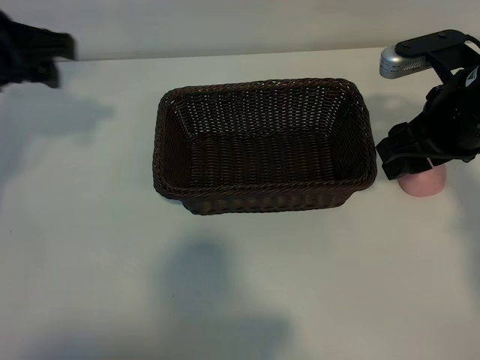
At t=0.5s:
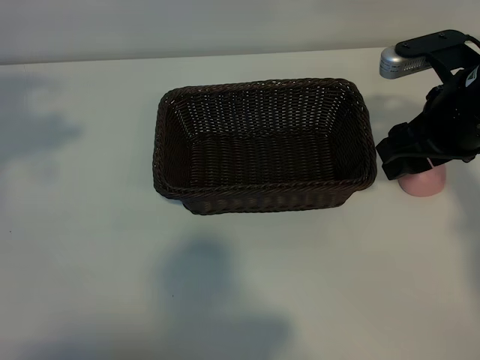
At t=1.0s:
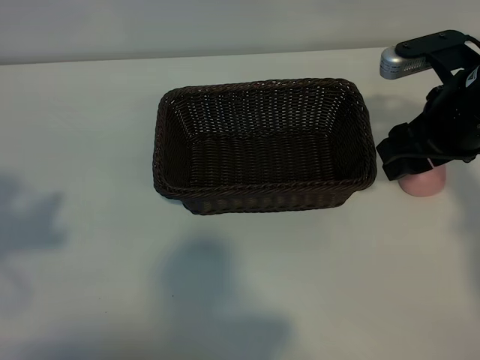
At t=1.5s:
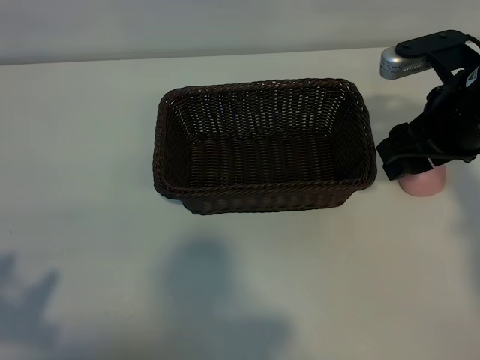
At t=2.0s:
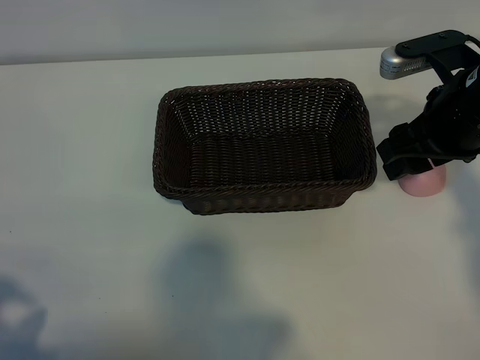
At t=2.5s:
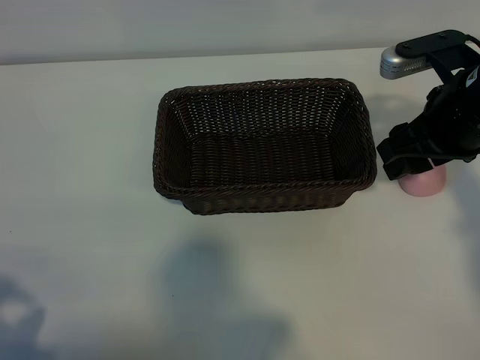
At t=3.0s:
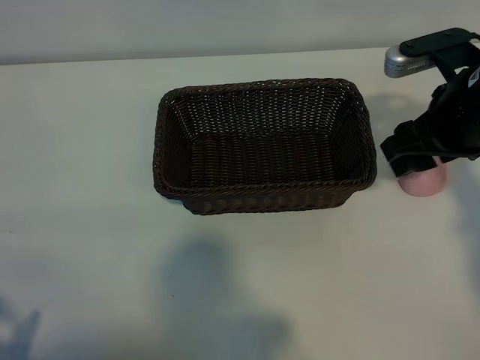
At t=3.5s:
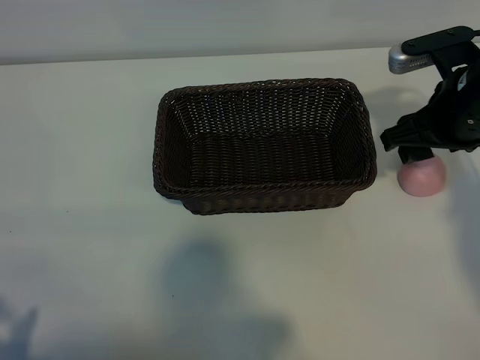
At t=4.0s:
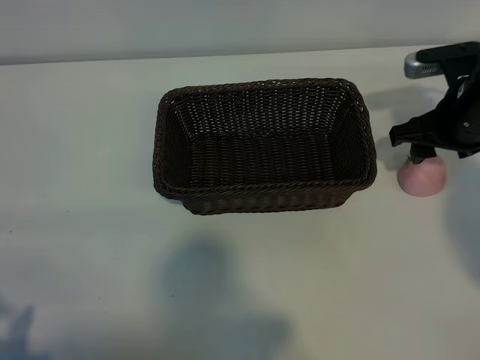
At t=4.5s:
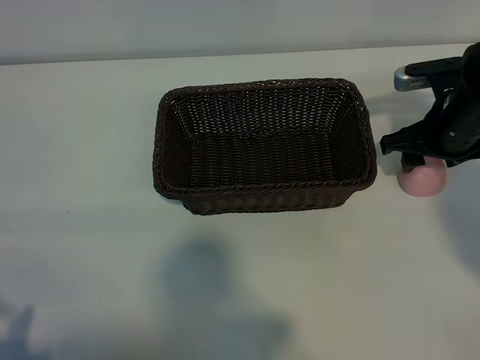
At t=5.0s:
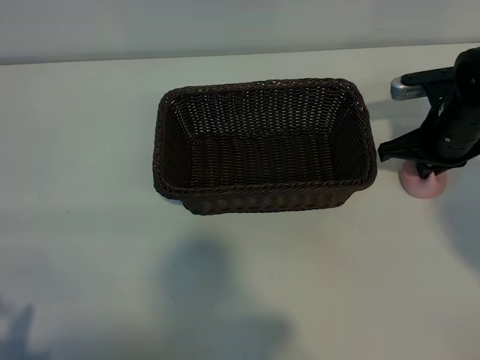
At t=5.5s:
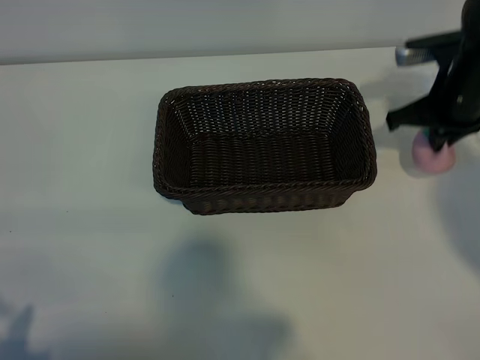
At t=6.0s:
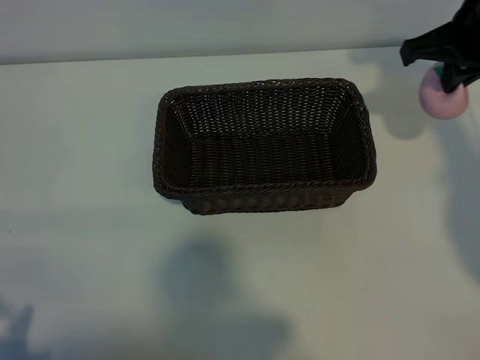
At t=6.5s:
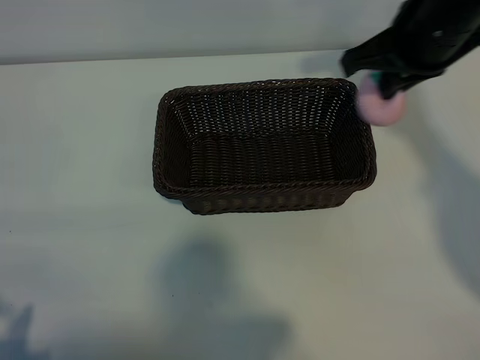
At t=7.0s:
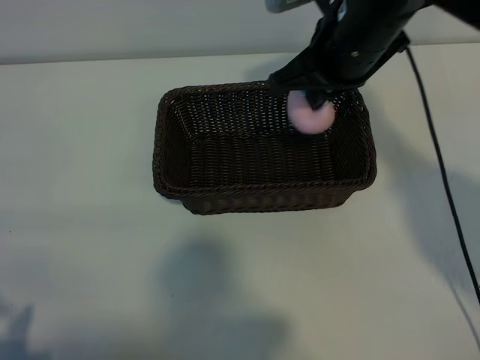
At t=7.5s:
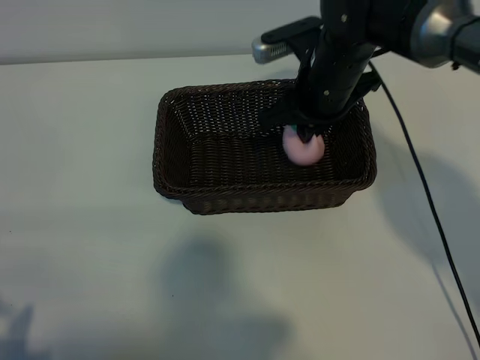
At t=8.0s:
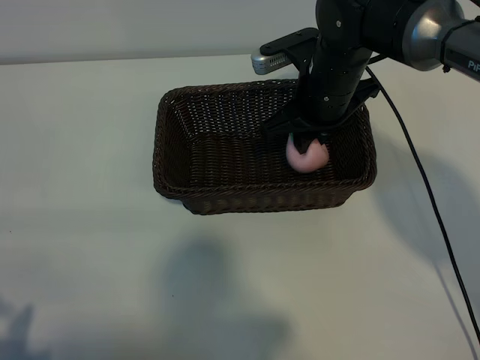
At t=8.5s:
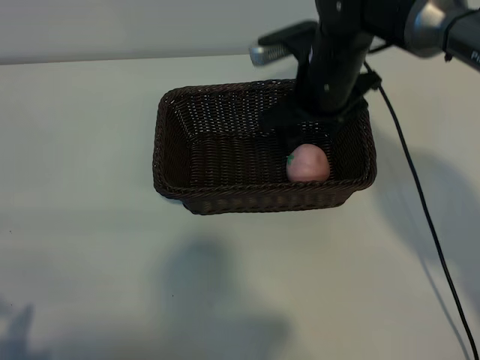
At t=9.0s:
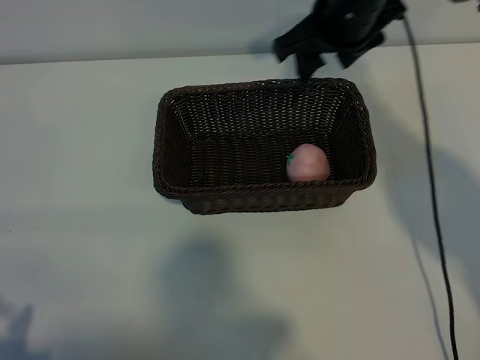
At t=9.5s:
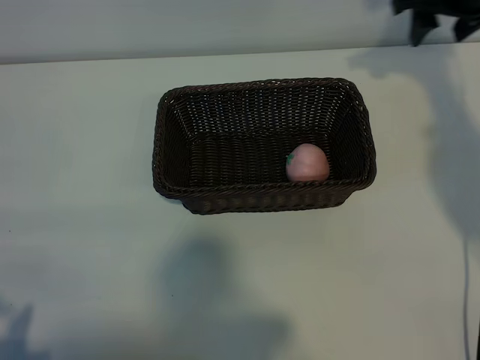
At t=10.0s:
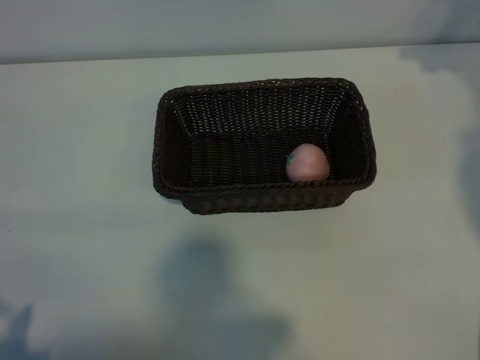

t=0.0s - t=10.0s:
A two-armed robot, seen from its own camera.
Task of the whole recording: pick up the peach and put it into the basket.
Step, t=0.0s - t=5.0s: Grasp the peach with right gripper.
Step, t=5.5s - t=8.0s: Place the peach in the basket with right gripper.

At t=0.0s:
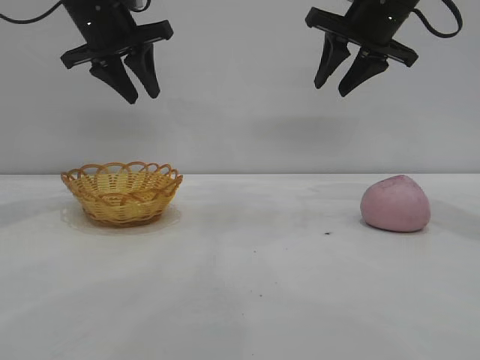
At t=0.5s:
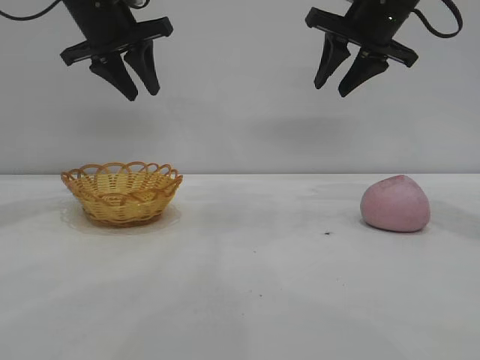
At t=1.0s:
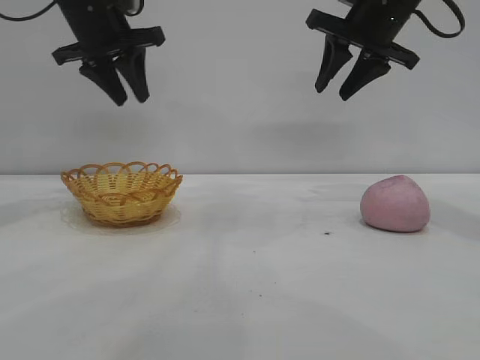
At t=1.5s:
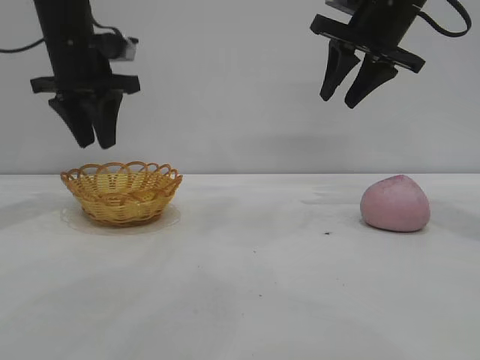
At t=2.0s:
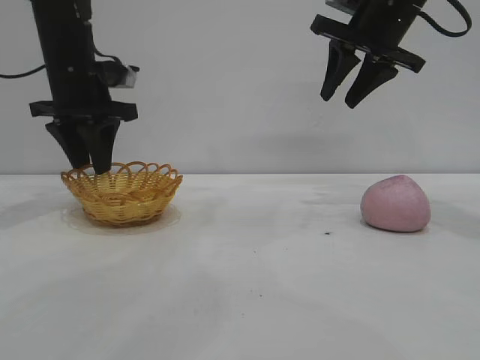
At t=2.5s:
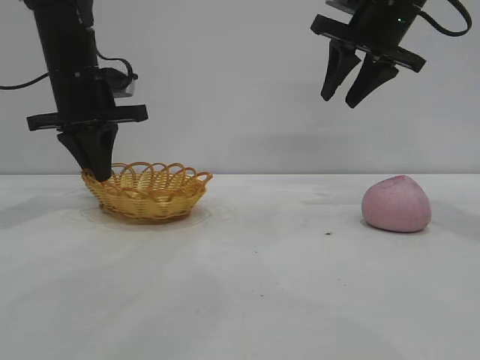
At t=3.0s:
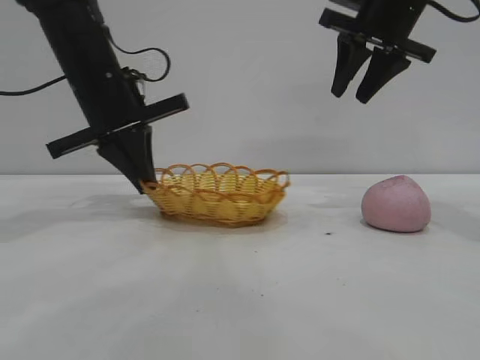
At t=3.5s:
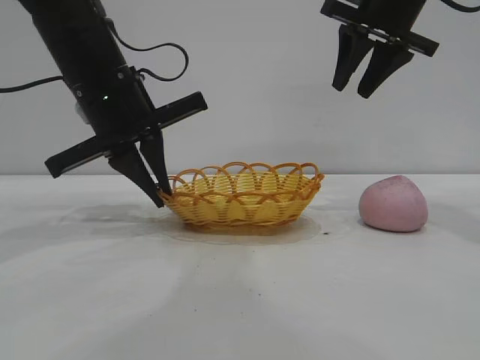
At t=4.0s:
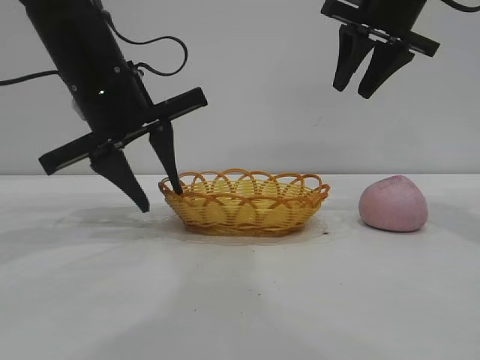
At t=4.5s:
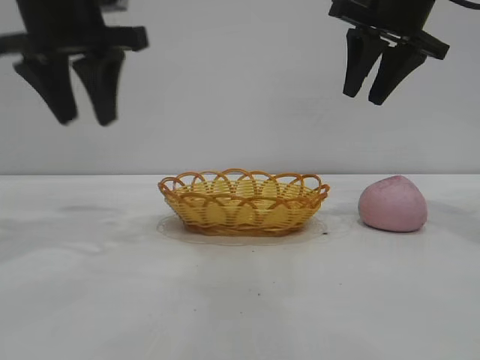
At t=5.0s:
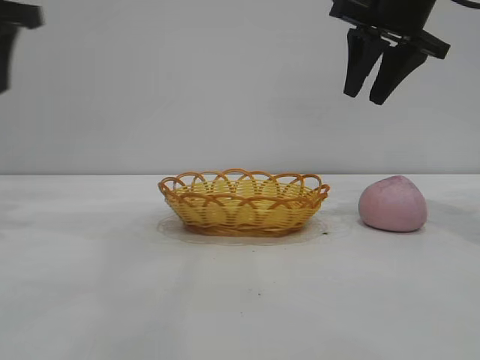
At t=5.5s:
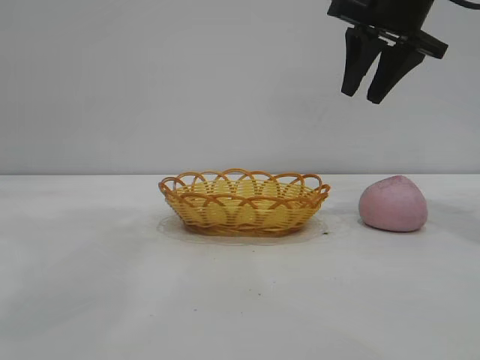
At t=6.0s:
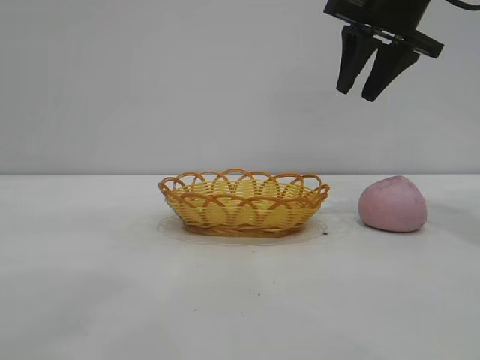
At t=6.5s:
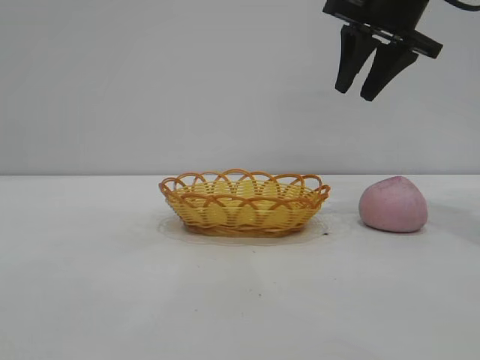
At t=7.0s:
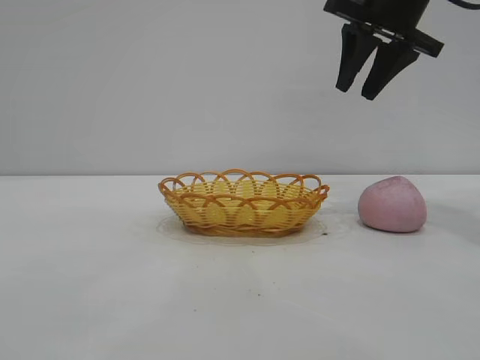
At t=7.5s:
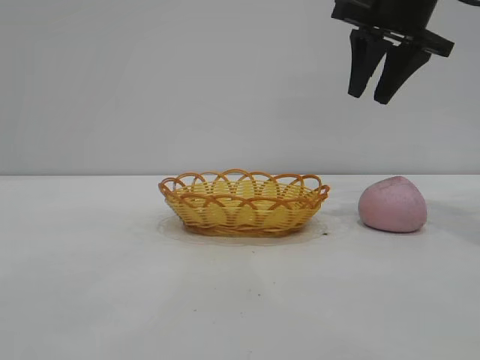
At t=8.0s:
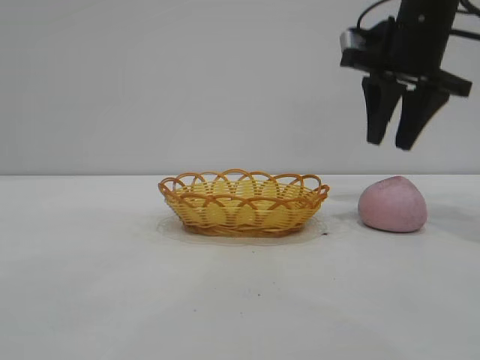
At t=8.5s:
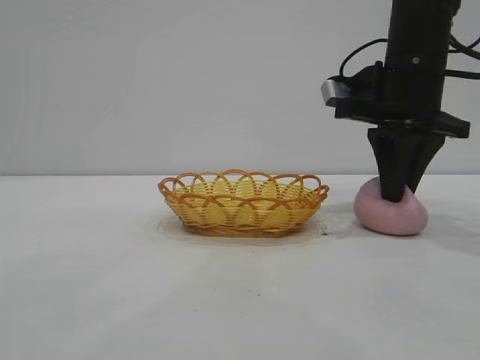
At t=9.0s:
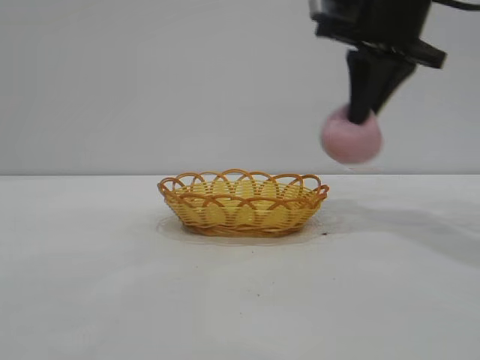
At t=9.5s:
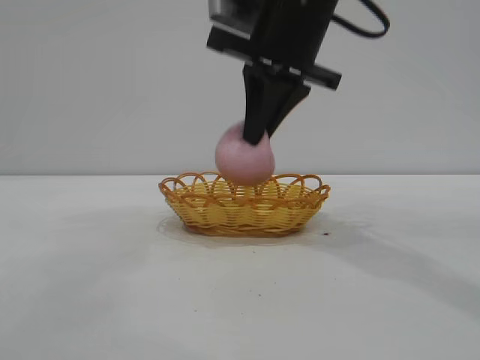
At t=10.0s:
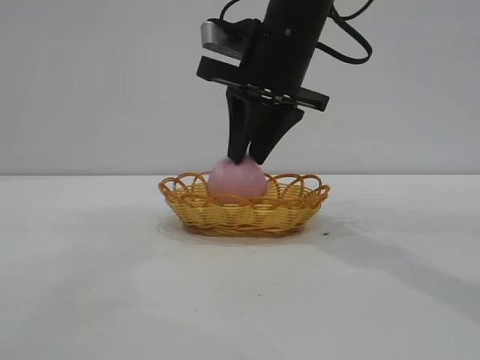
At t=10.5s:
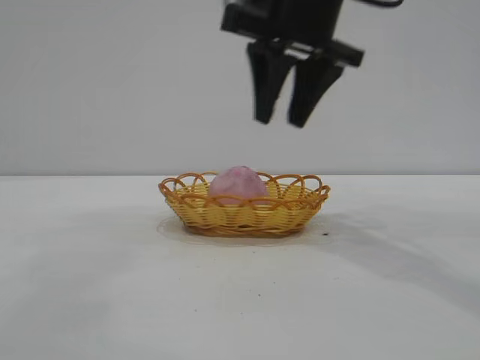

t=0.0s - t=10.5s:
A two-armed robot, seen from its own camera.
Task of the whole recording: pick up the peach and put it into the basket.
Step, t=0.0s - t=4.0s: Move the basket to the center of view.
Step, t=4.5s - t=8.5s: Pick up the peach.

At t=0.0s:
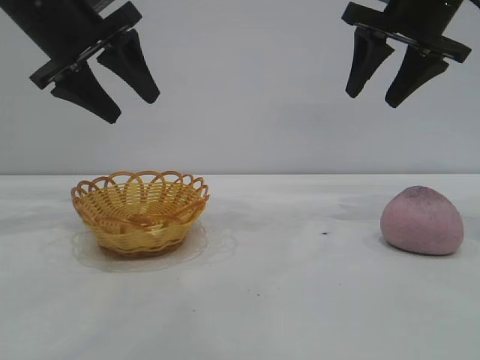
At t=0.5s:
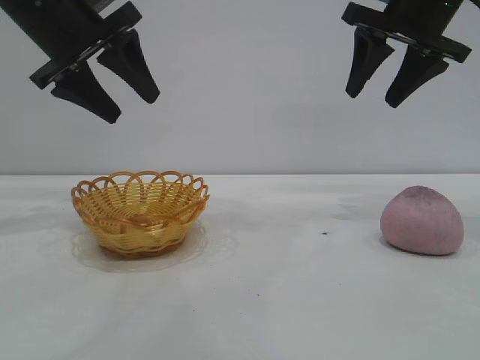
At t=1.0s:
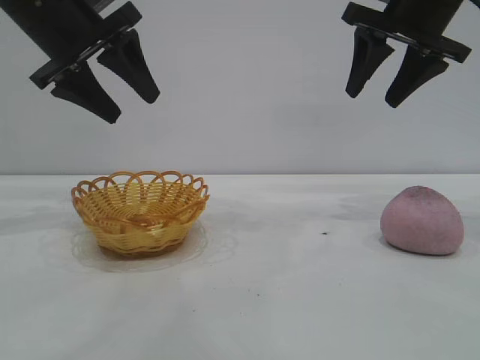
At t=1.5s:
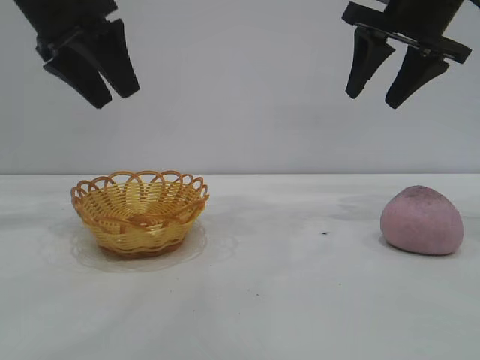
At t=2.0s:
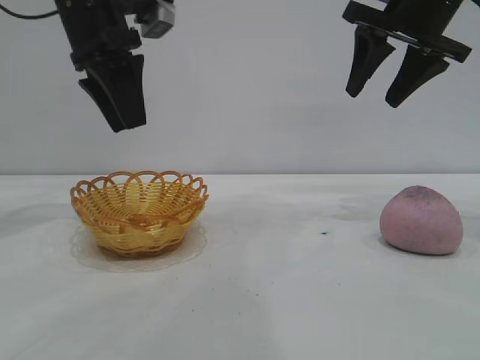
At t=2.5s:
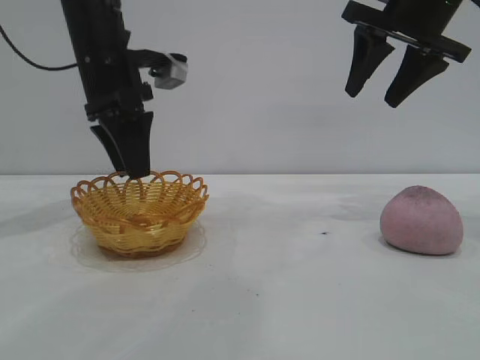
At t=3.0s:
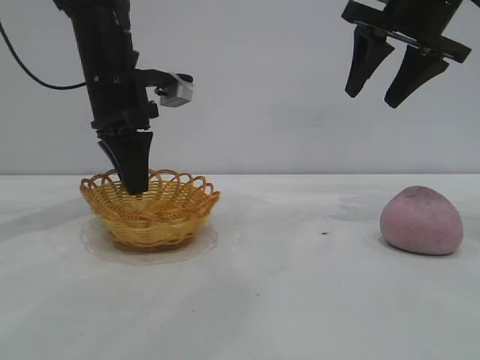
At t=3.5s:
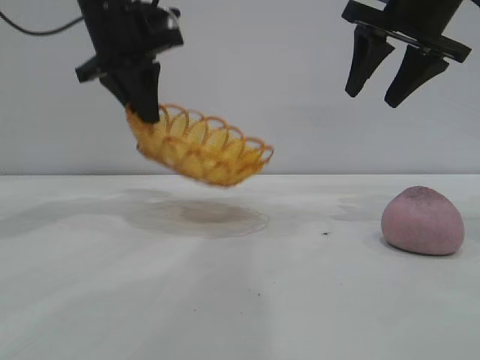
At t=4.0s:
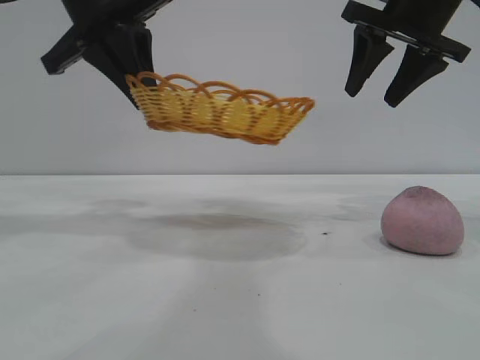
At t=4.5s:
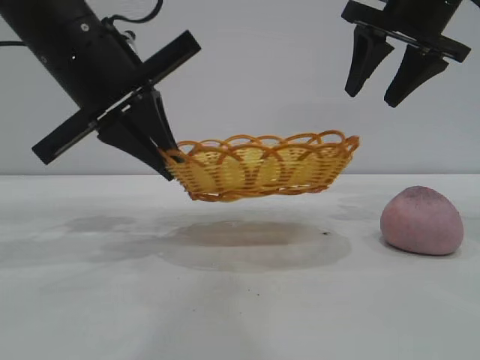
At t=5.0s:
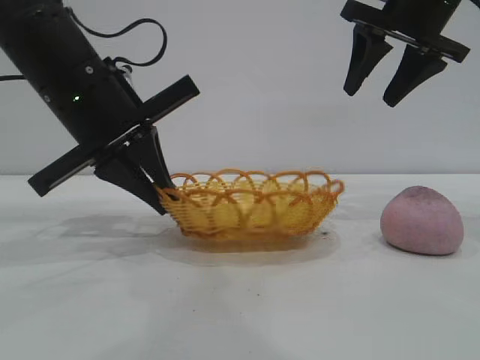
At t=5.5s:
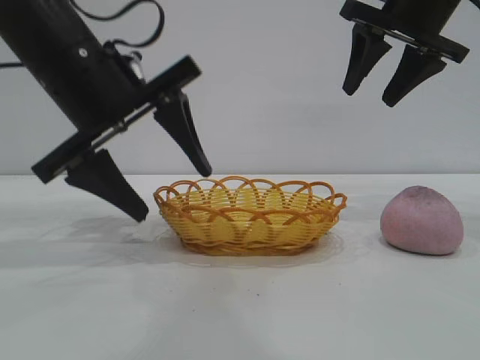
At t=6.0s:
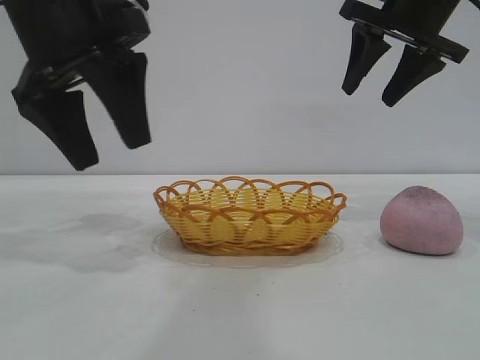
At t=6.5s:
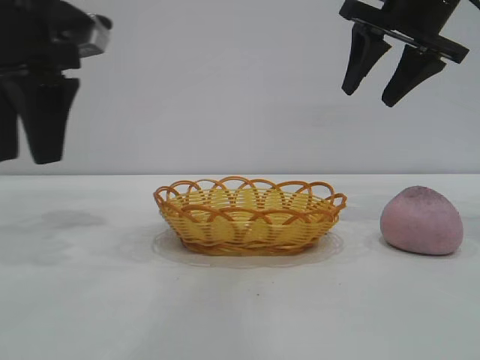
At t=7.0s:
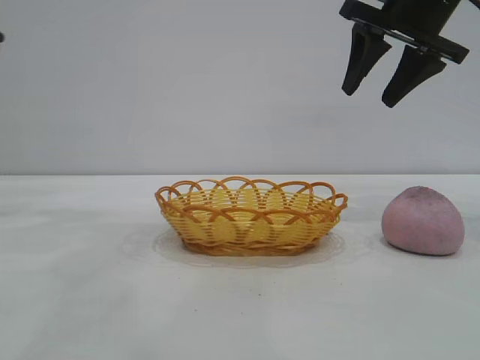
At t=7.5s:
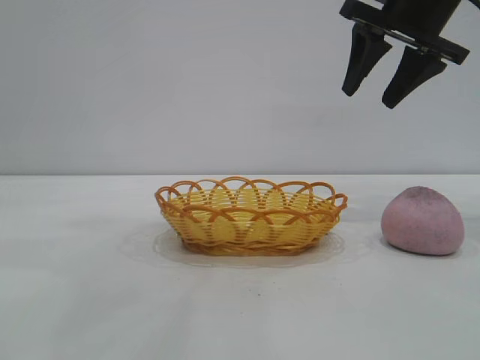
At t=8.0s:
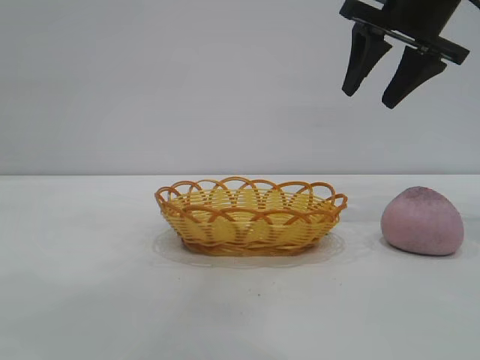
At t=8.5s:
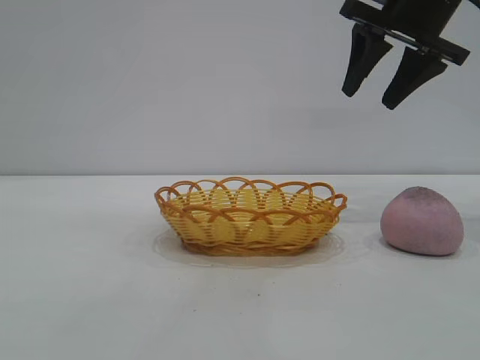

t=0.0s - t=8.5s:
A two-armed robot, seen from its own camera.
Task of the whole recording: pick up the peach and put it into the basket.
Step, t=0.0s - t=6.0s: Move the basket to the center of view.
